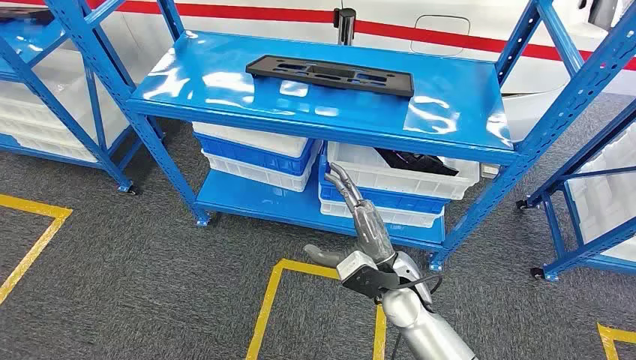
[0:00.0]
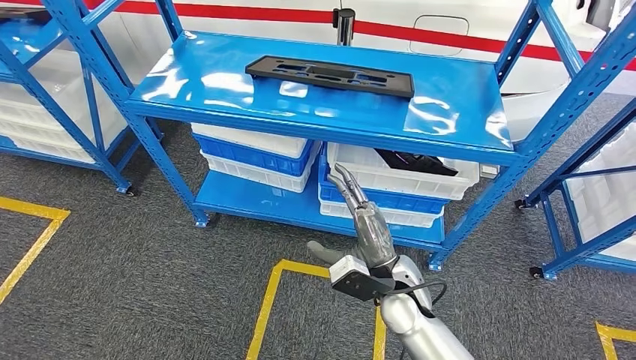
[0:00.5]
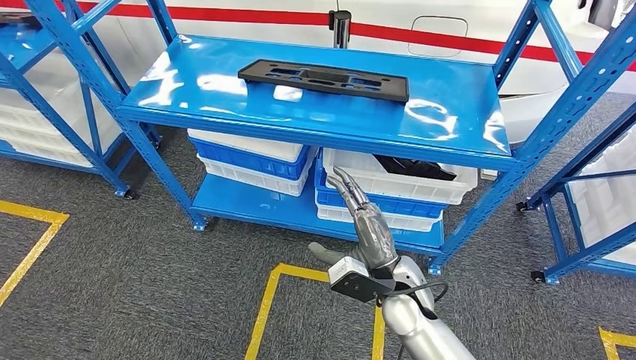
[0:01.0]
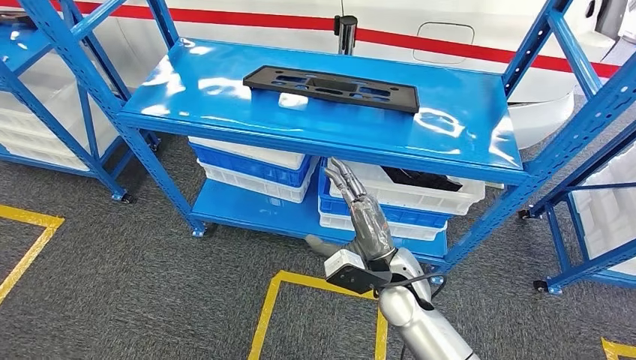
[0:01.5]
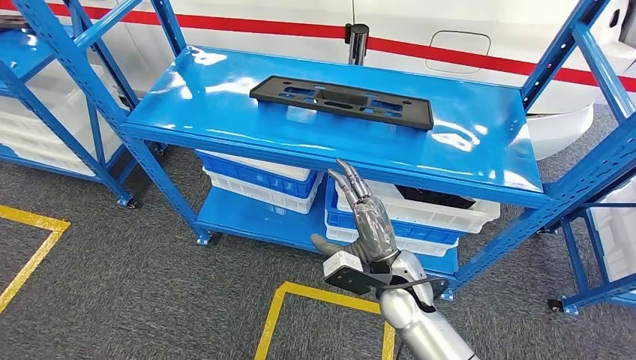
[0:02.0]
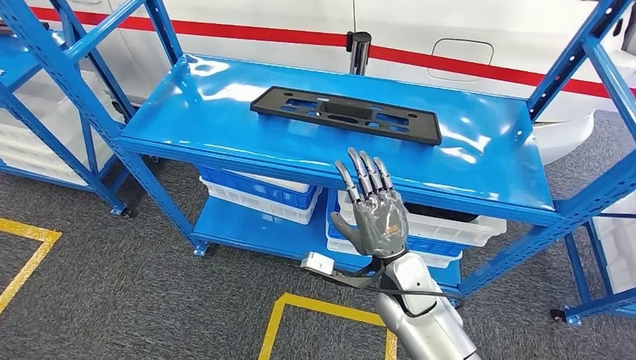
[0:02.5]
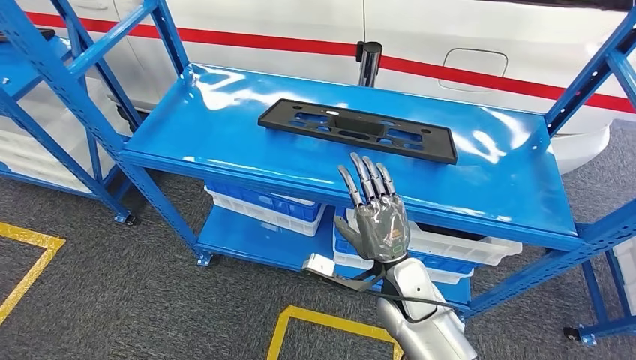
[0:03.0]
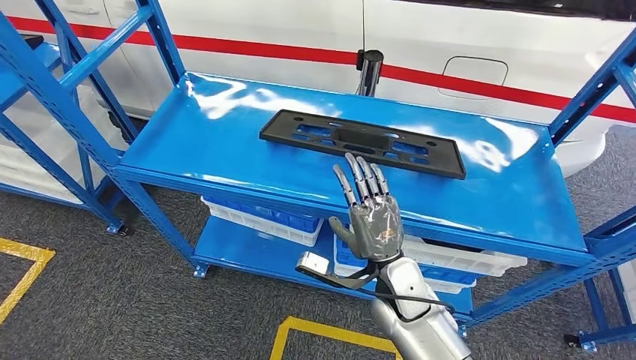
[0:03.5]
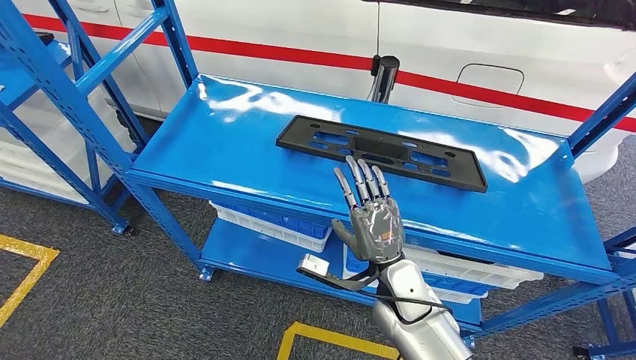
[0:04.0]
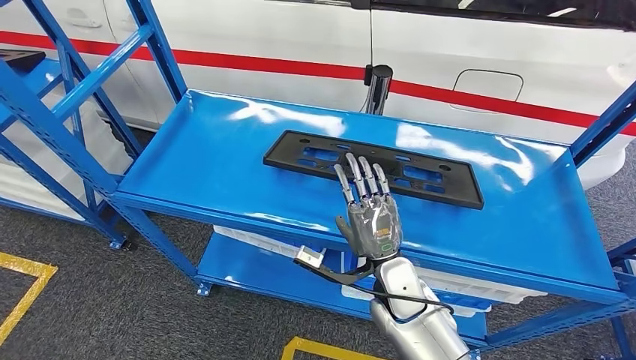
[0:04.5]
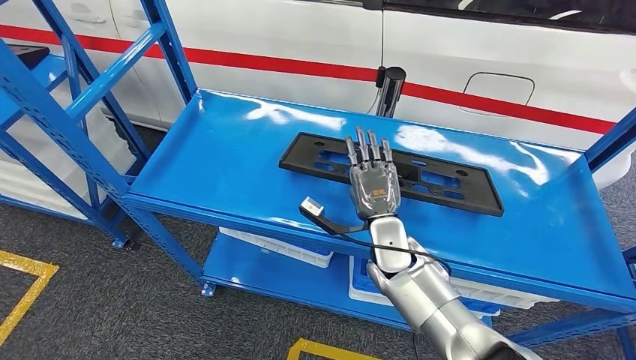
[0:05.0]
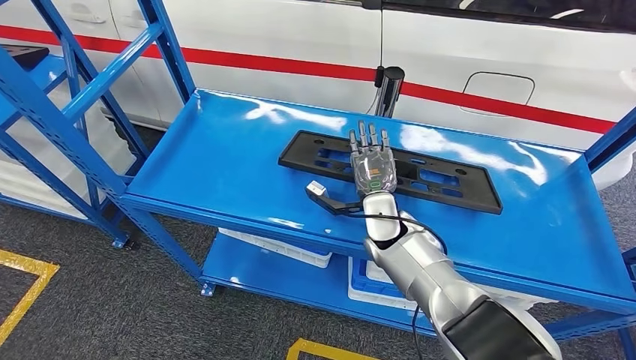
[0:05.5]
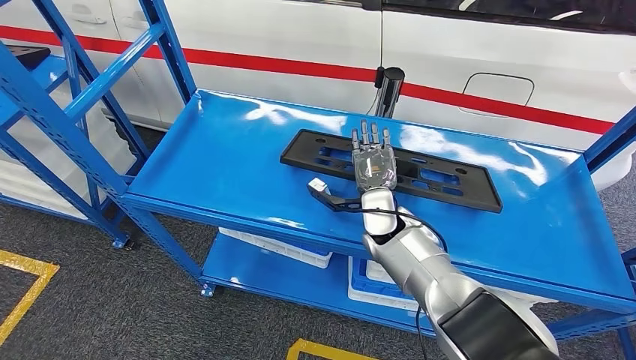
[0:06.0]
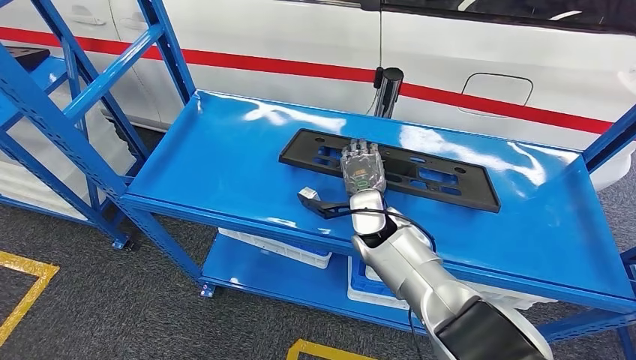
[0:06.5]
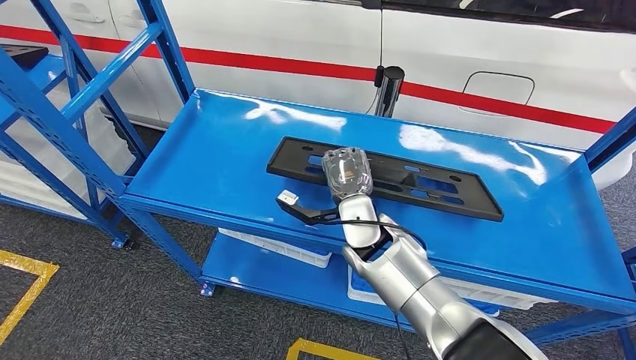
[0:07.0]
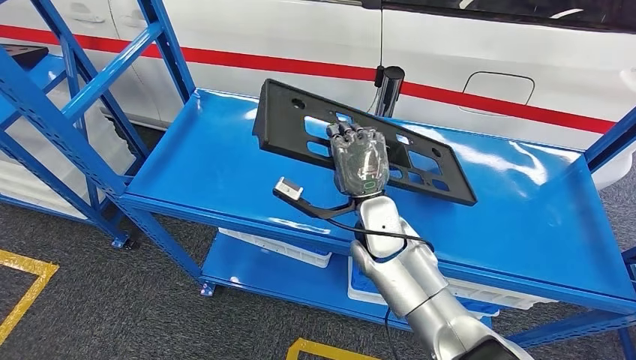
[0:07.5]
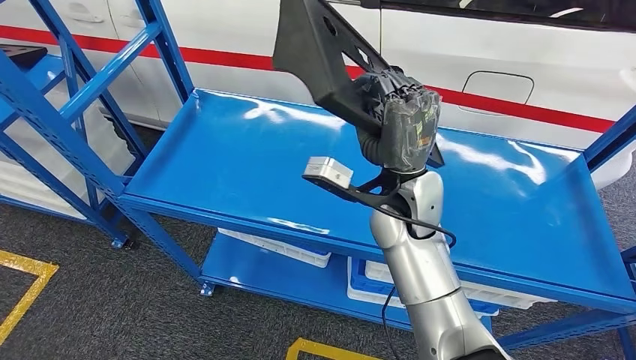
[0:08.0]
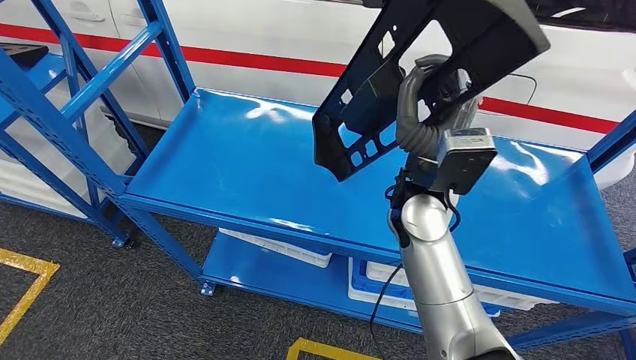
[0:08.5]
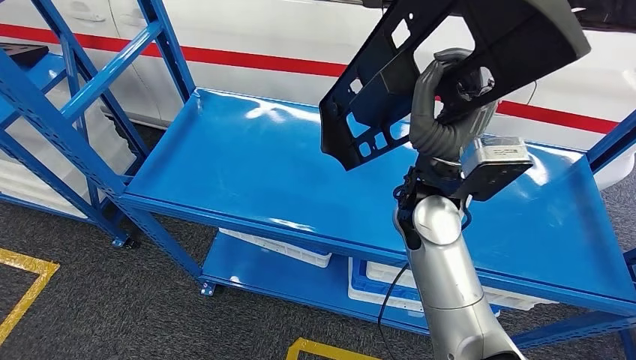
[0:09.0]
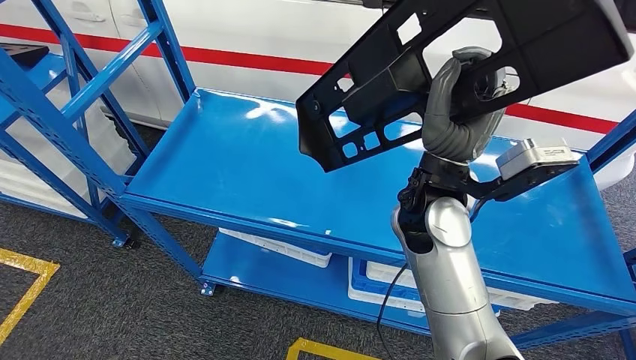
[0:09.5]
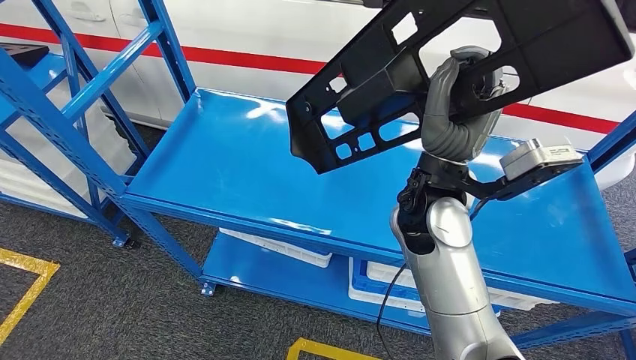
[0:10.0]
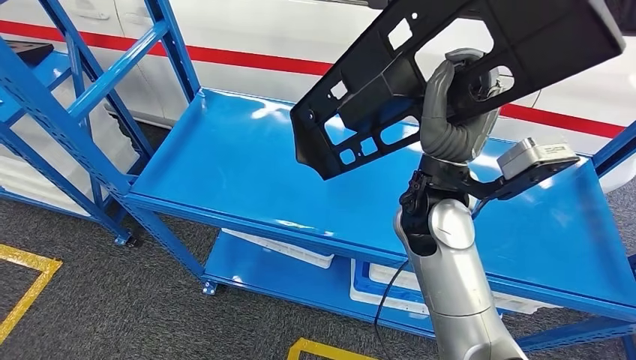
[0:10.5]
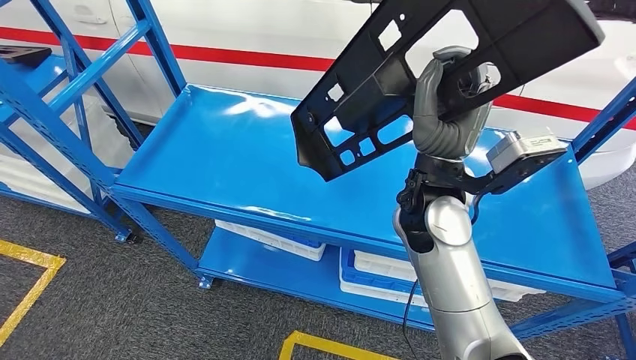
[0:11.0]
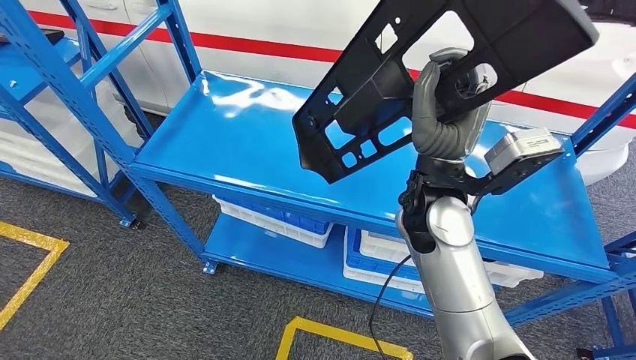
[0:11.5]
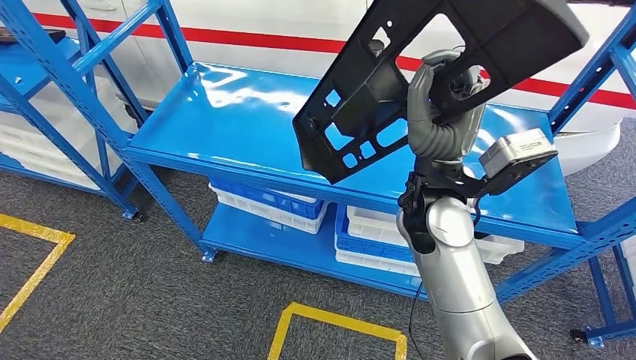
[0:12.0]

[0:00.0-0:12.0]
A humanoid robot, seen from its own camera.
Step, 0:00.0 to 0:11.0: Pick up the large material from the shelf.

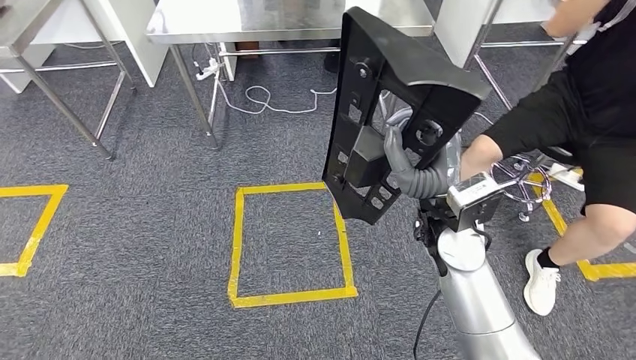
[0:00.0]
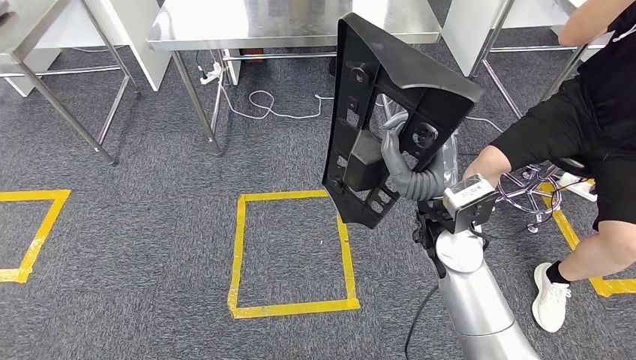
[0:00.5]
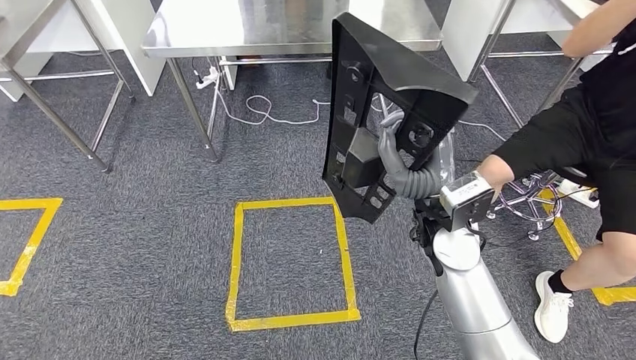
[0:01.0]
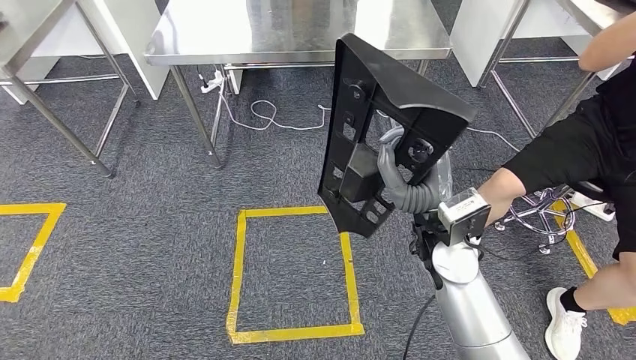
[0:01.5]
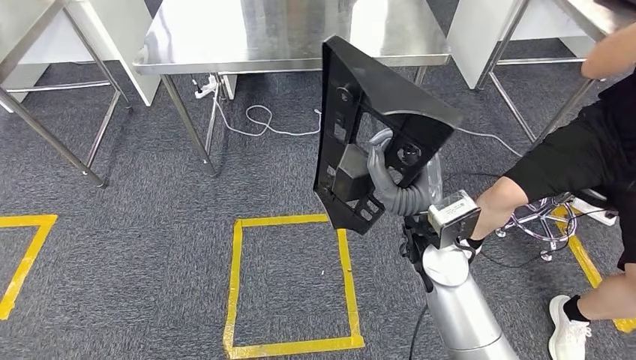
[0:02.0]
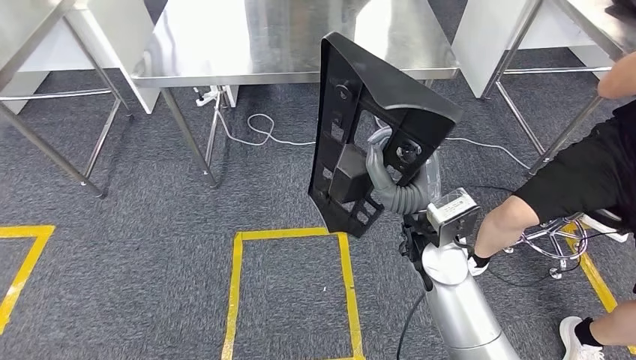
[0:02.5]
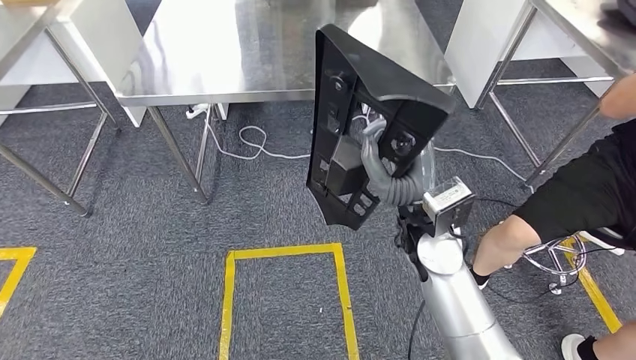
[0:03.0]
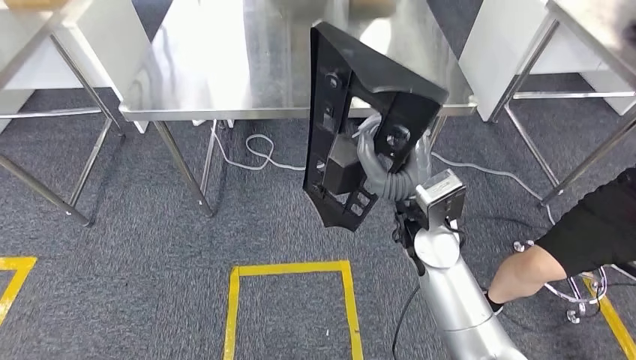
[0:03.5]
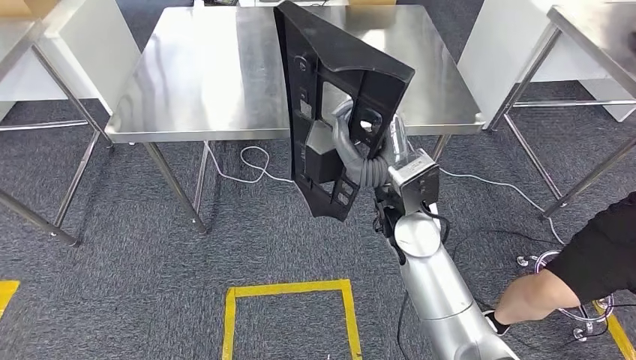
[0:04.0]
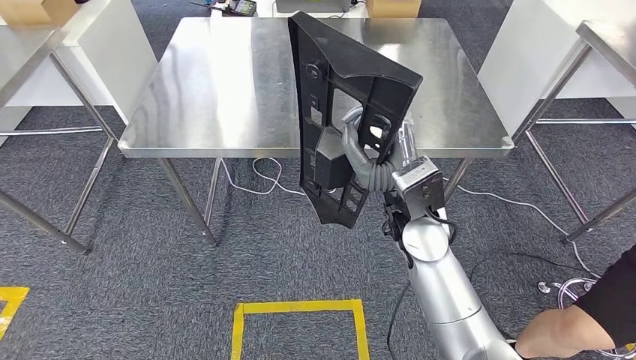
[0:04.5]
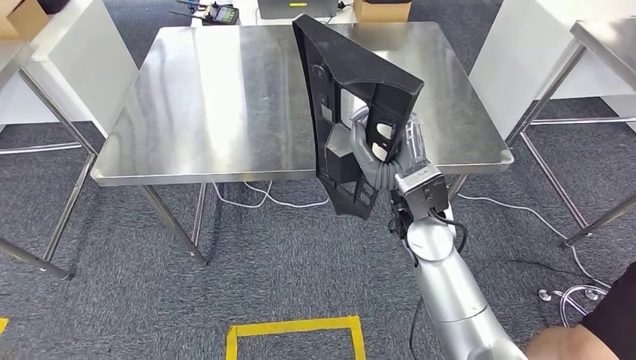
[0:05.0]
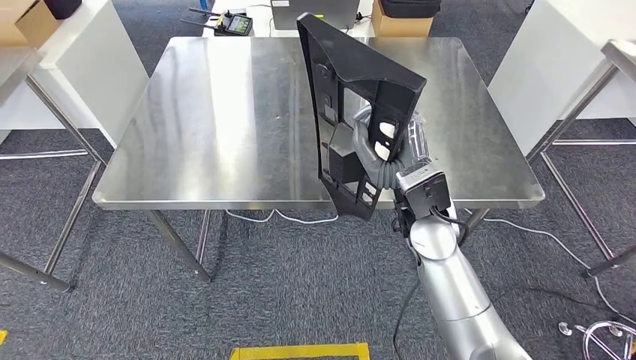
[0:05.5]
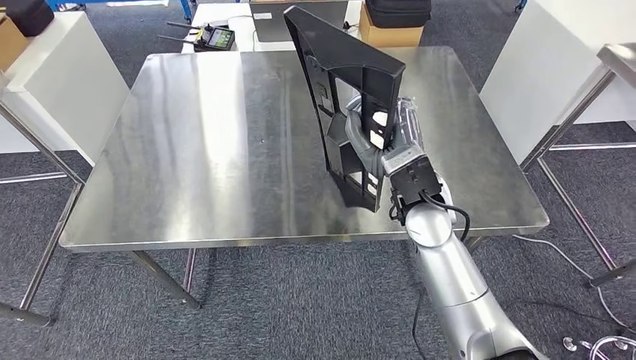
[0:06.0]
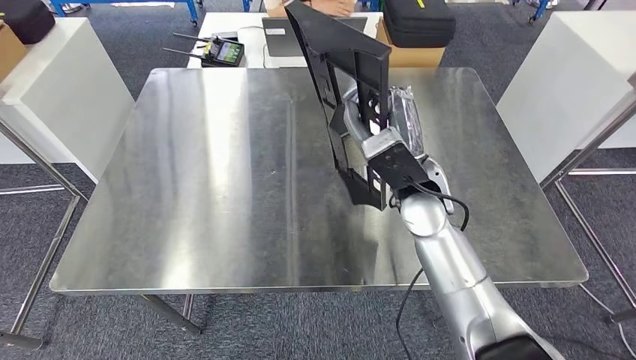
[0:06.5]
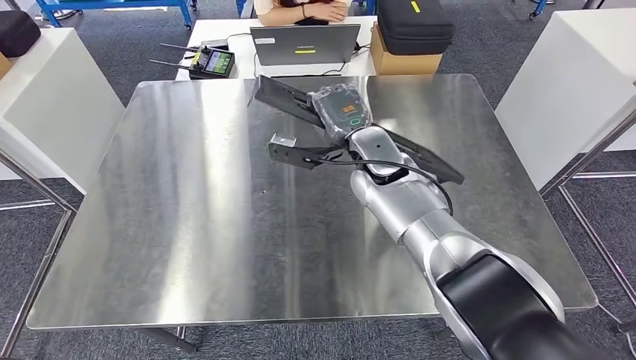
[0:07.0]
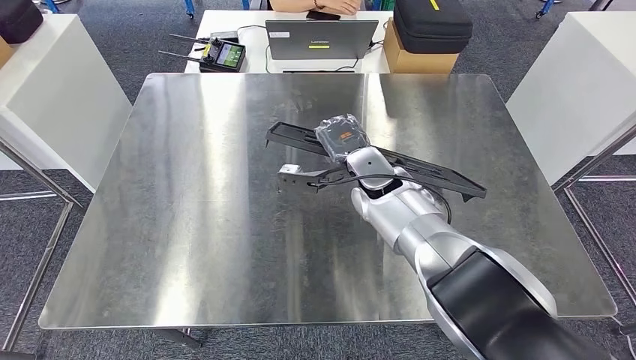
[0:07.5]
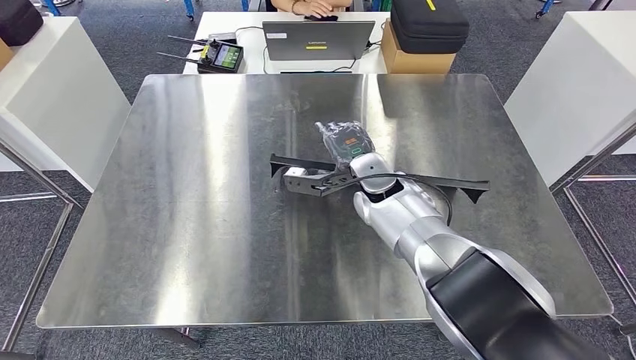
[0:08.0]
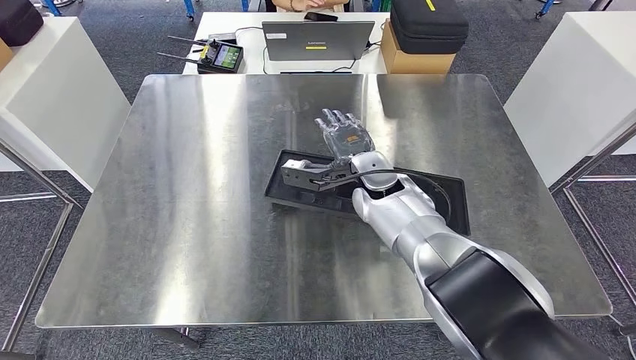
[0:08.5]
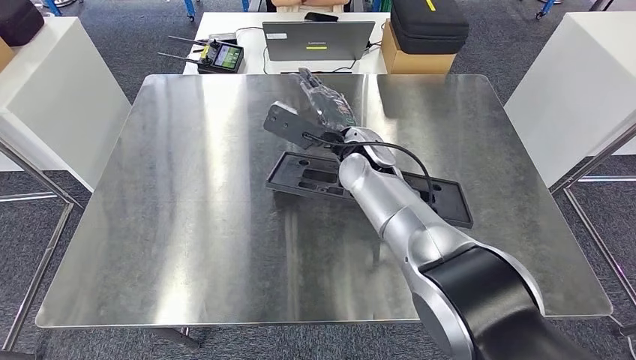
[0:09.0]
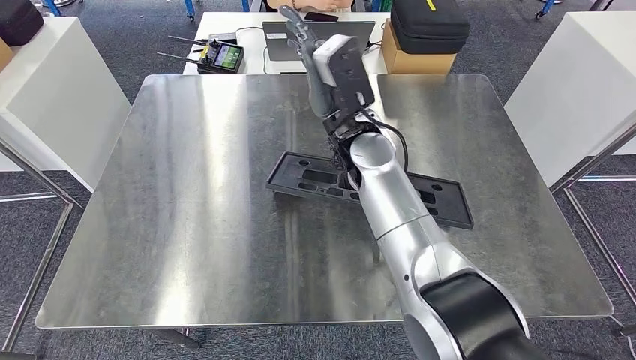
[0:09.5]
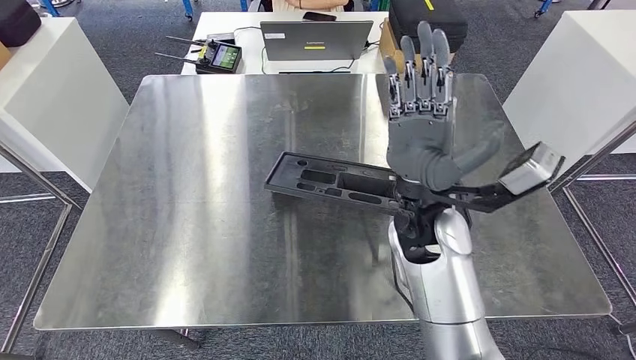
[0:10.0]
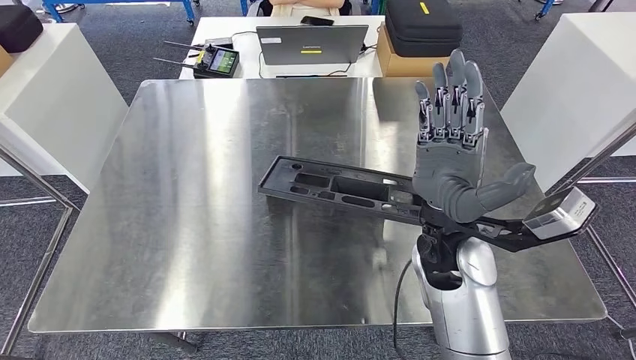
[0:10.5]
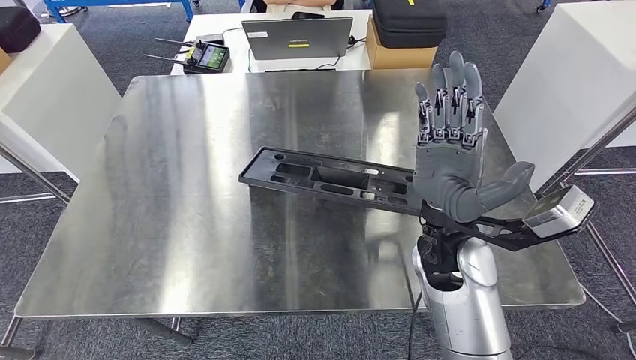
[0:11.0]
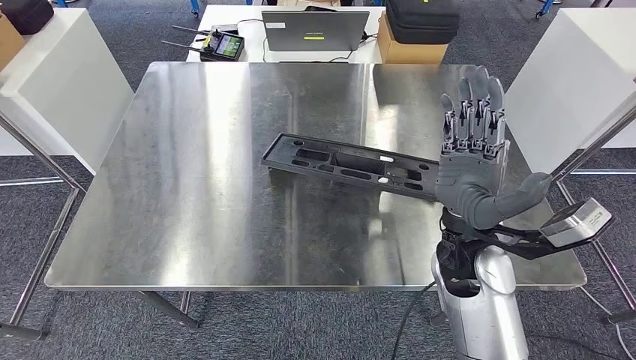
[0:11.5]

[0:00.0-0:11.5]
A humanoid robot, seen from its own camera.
Step, 0:00.0 to 0:04.0: Move the large material to the workbench.
0:07.5 to 0:09.5: The right hand goes approximately 10 cm upward.
